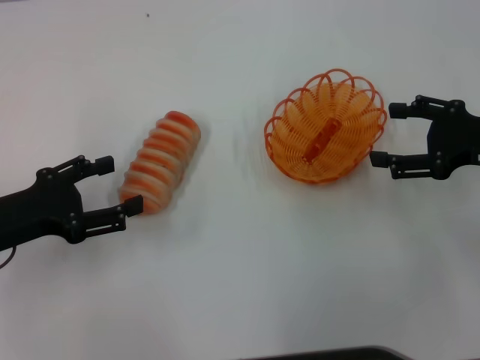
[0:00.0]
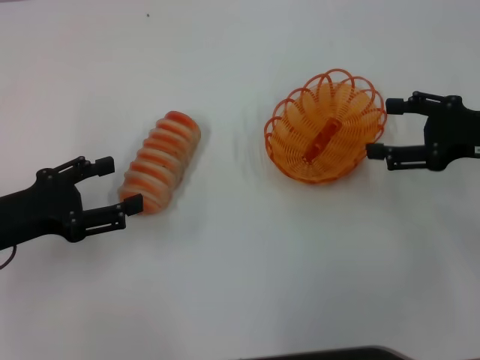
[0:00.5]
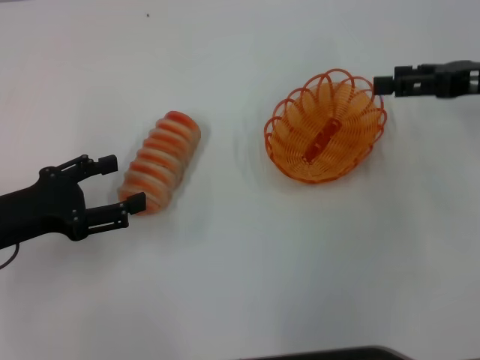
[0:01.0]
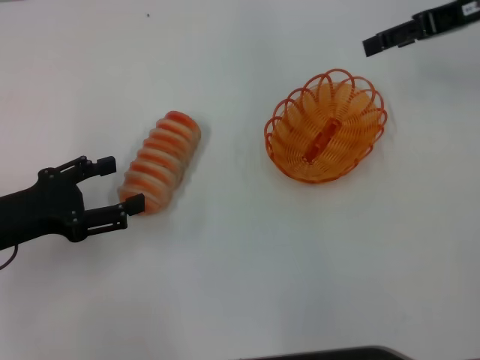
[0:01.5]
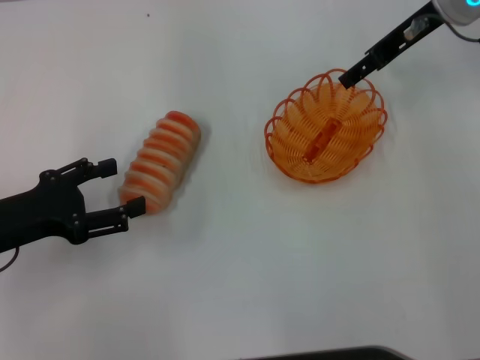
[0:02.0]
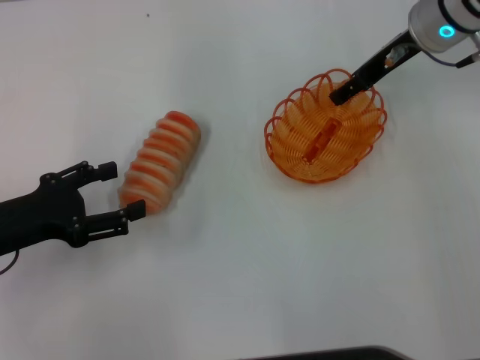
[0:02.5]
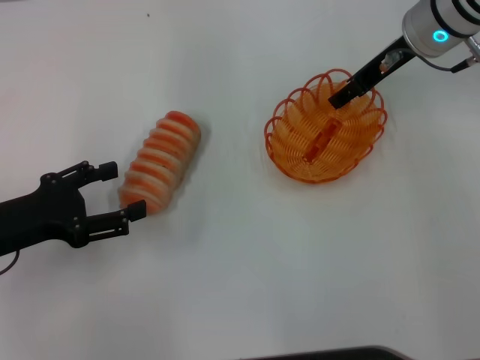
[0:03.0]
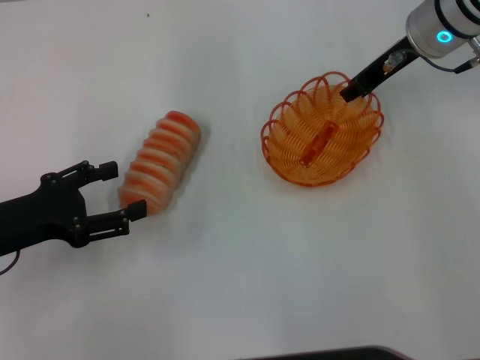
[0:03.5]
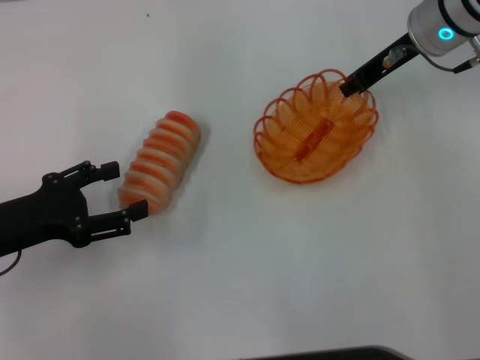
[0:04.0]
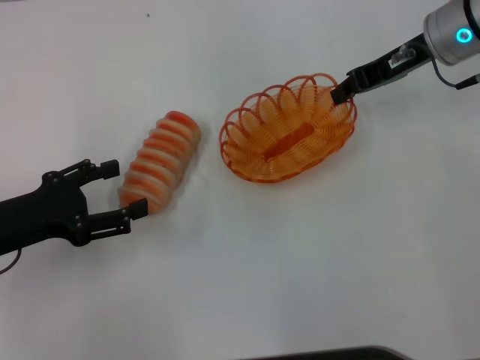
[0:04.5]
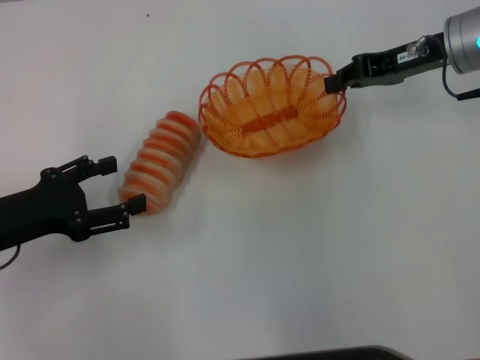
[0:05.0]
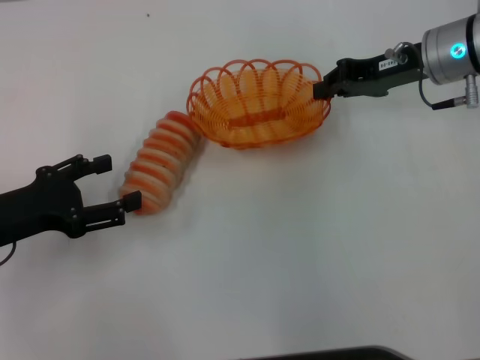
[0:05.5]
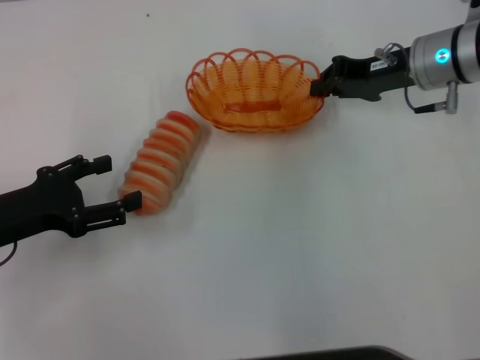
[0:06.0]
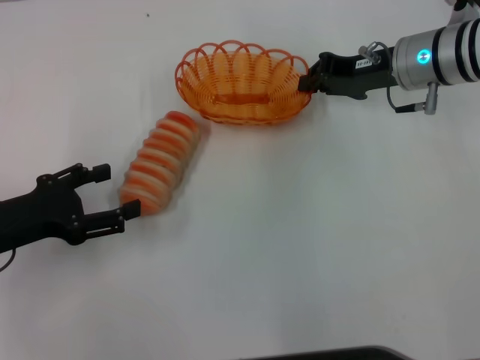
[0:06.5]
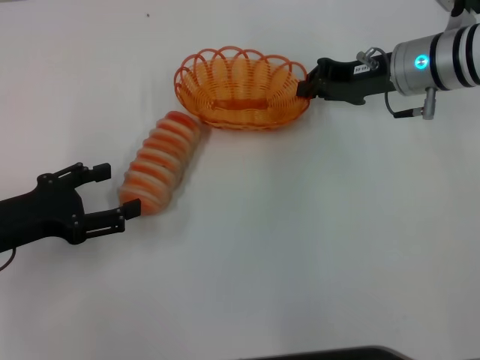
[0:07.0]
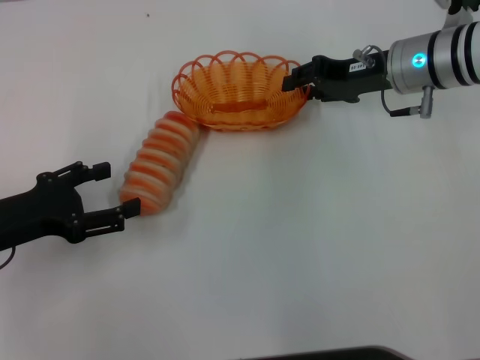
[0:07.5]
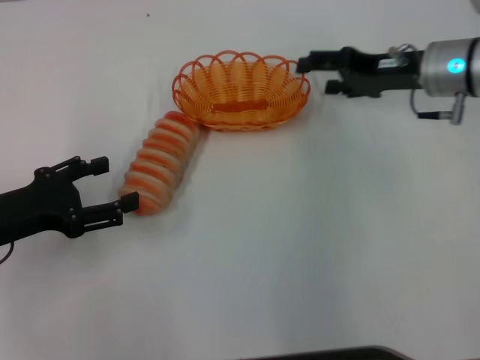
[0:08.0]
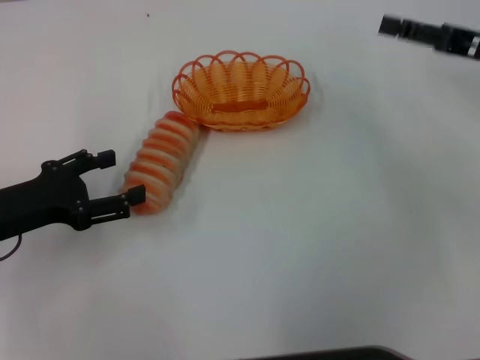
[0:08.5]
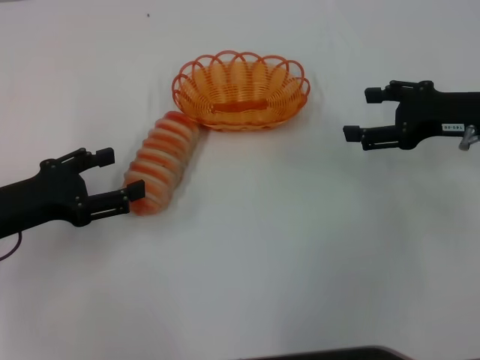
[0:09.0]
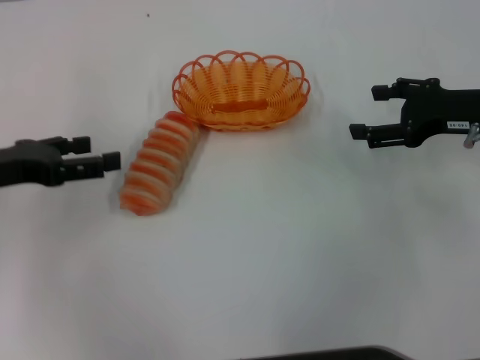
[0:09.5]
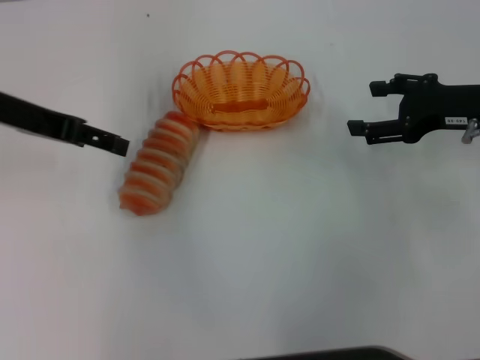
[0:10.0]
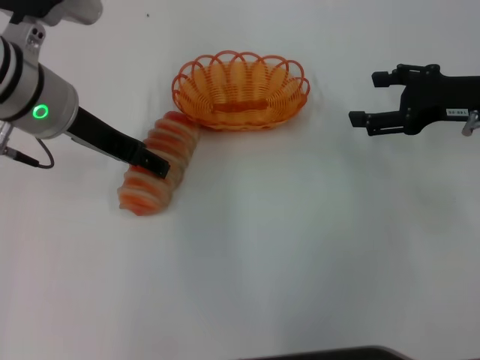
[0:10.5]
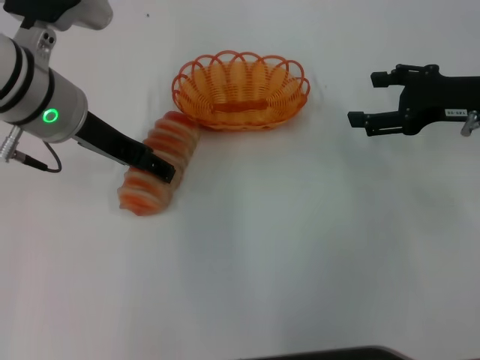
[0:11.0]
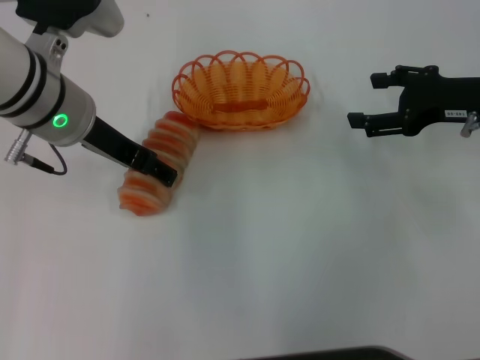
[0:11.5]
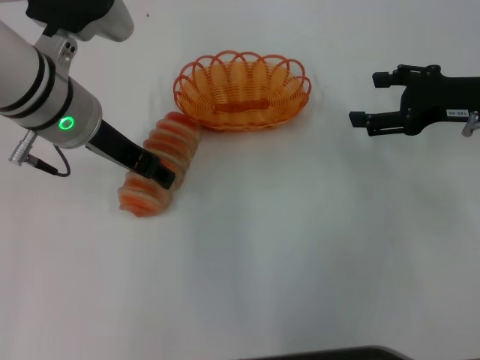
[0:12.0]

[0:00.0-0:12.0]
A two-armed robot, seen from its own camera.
Step, 0:00.0 to 0:04.0: Pick up the basket with the right gripper.
Step, 0:04.5 to 0:08.0: Place the basket in the center of view with the right gripper.
0:00.0 to 0:02.0: The right gripper shifts about 20 cm forward, to the left and upward.
0:02.0 to 0:04.0: The right gripper closes.
0:04.0 to 0:06.0: The right gripper shifts by about 5 cm.
0:06.0 to 0:08.0: The right gripper opens up.
0:08.0 to 0:10.0: The left gripper travels upward and forward by roughly 15 cm; the right gripper heads backward and to the right, covering roughly 10 cm.
0:10.0 to 0:12.0: The left gripper shifts roughly 10 cm to the right.

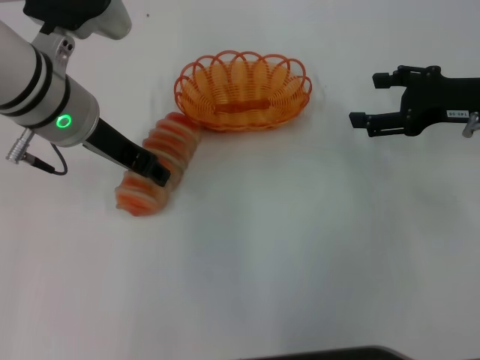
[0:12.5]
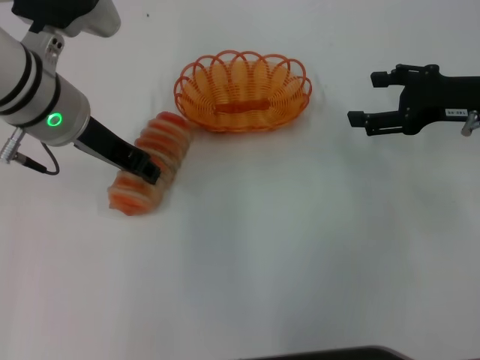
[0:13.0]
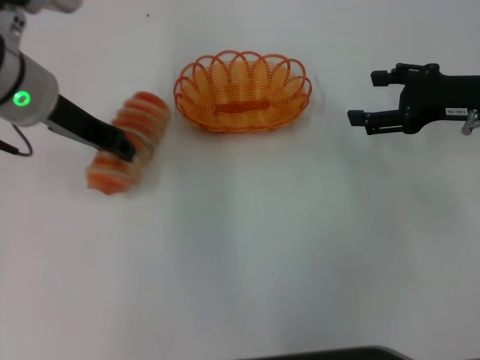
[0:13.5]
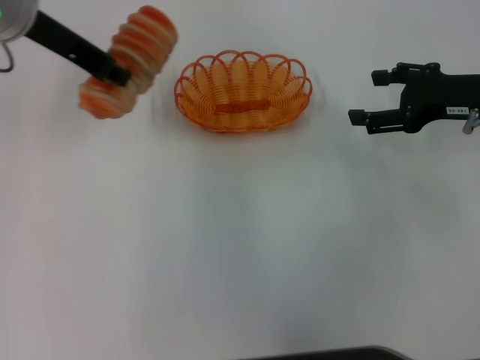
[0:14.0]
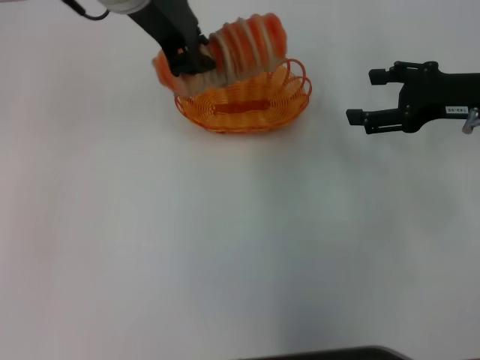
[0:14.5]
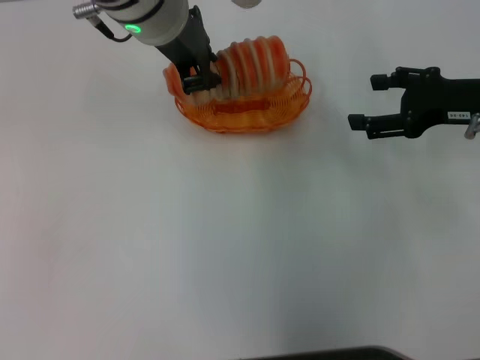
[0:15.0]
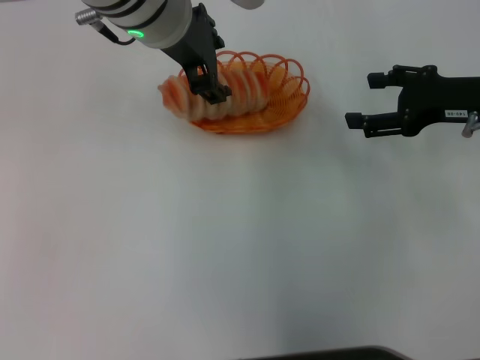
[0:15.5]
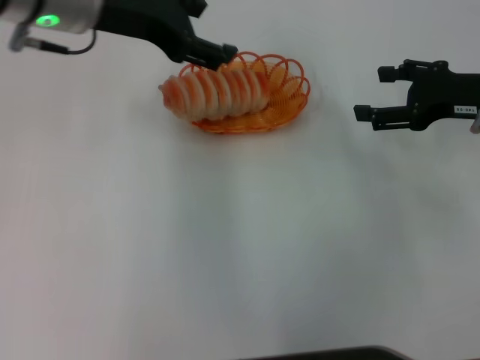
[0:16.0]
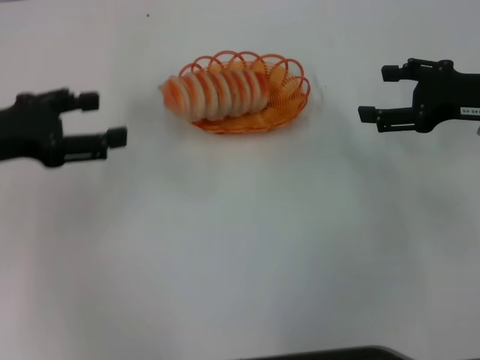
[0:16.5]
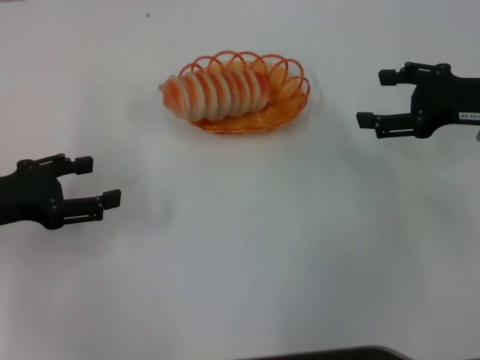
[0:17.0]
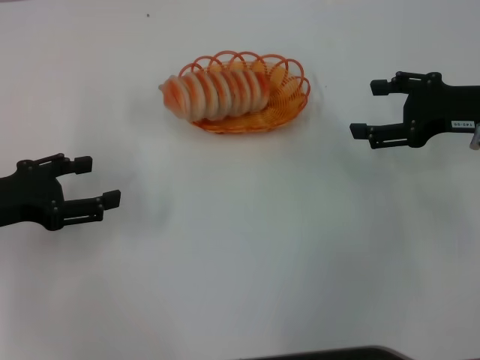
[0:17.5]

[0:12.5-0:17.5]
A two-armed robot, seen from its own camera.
Step, 0:14.0 to 0:16.0: Place the long bread into the basket with the left gripper.
0:12.5 to 0:15.0: The left gripper travels to the right and upward by roughly 10 cm, and closes its fingers.
0:15.0 to 0:17.5: The left gripper moves to the left, backward and downward, approximately 30 cm, and opens its fingers.
